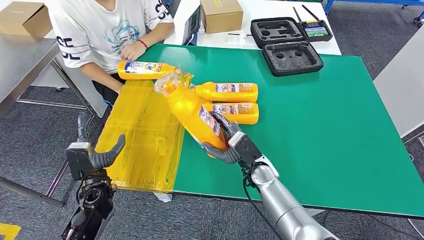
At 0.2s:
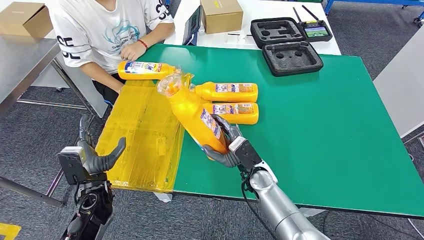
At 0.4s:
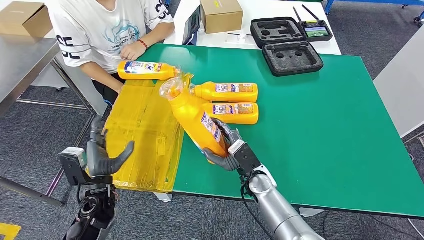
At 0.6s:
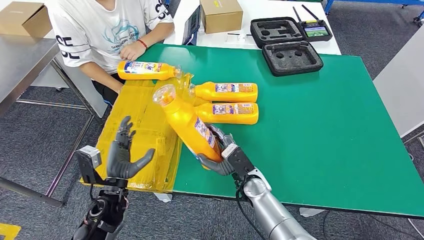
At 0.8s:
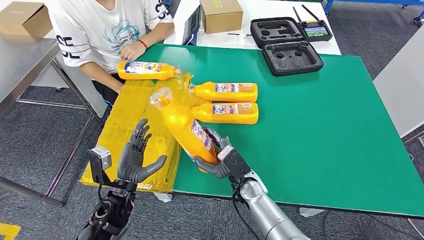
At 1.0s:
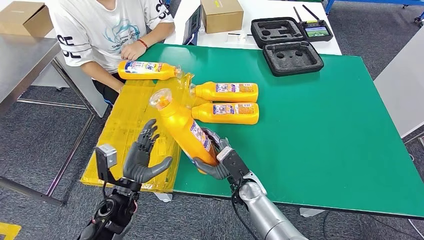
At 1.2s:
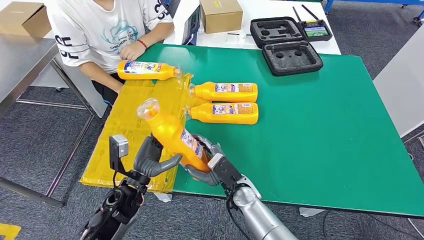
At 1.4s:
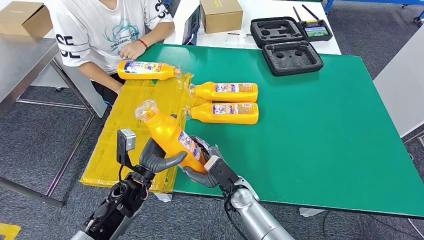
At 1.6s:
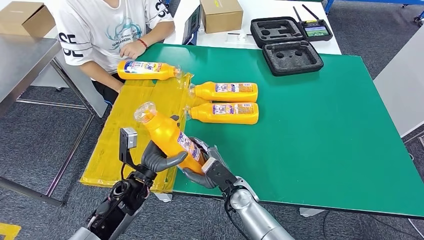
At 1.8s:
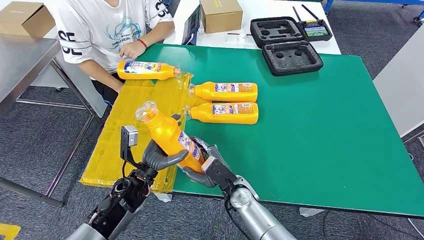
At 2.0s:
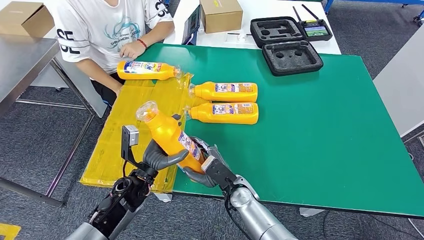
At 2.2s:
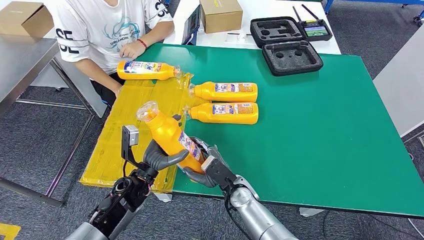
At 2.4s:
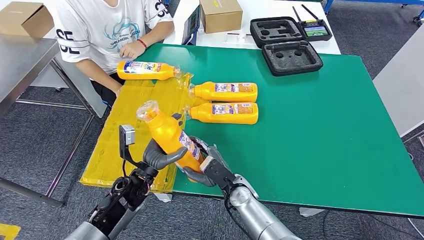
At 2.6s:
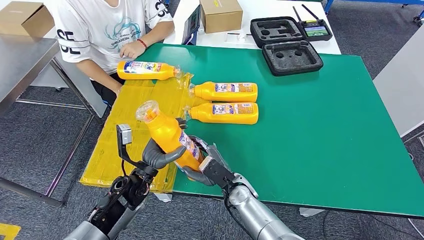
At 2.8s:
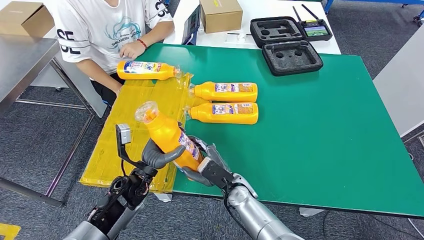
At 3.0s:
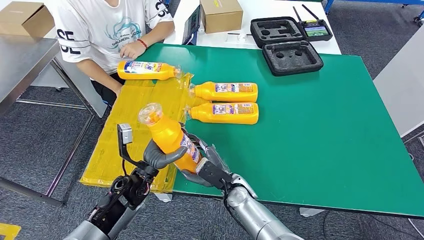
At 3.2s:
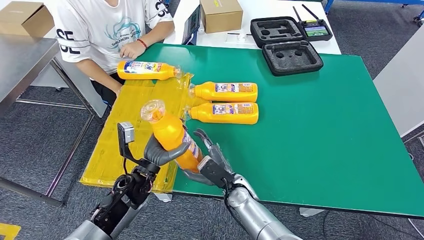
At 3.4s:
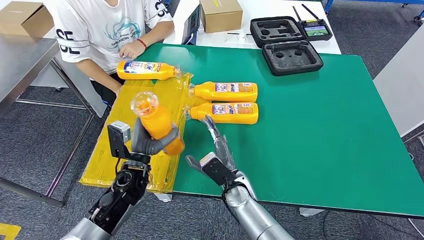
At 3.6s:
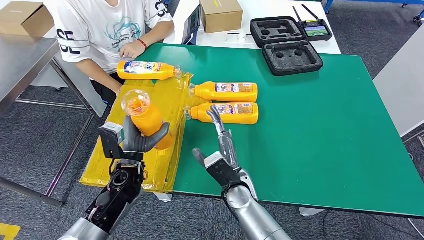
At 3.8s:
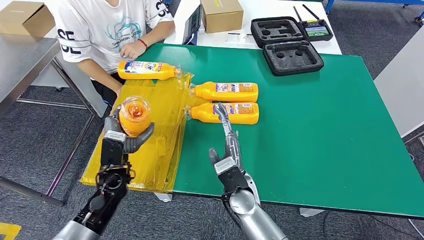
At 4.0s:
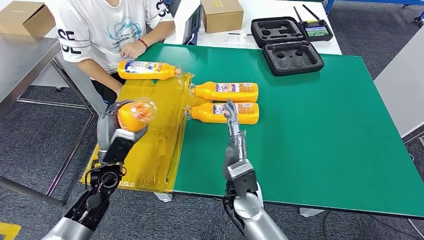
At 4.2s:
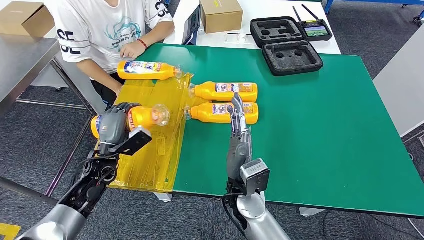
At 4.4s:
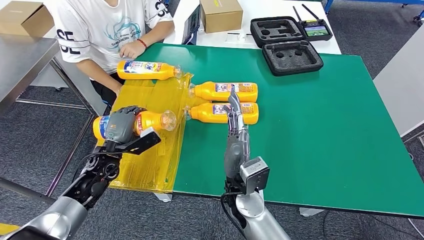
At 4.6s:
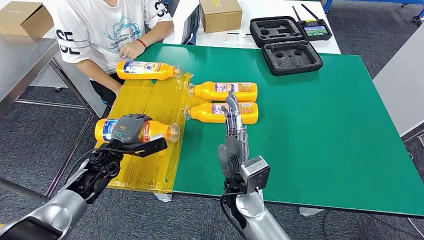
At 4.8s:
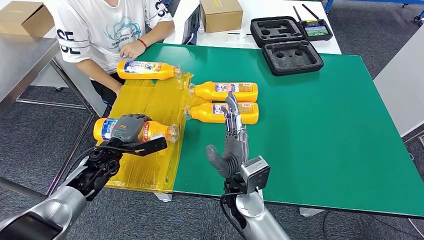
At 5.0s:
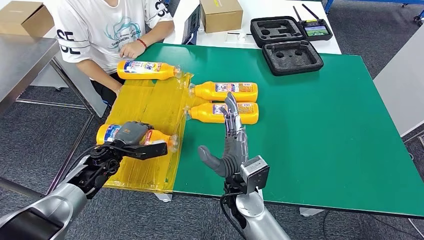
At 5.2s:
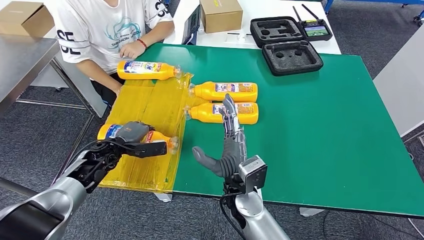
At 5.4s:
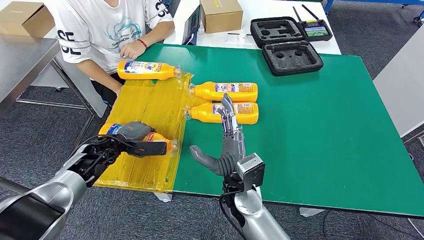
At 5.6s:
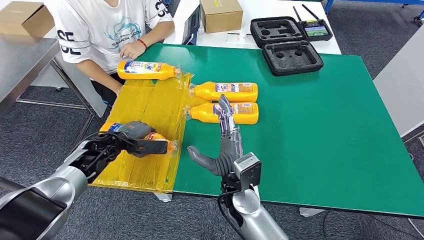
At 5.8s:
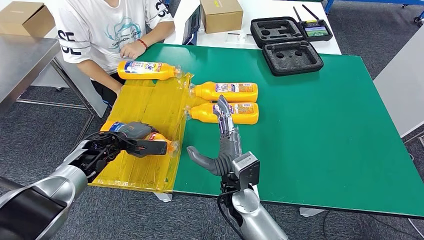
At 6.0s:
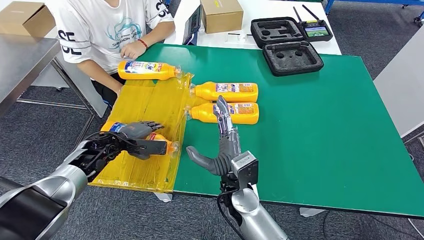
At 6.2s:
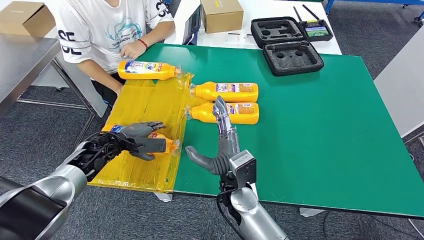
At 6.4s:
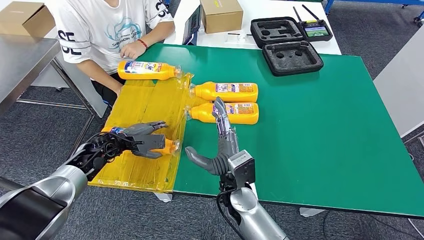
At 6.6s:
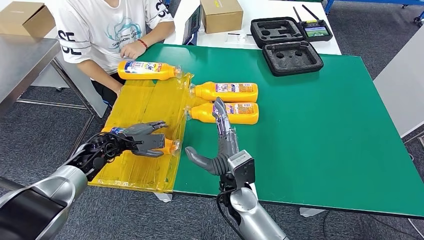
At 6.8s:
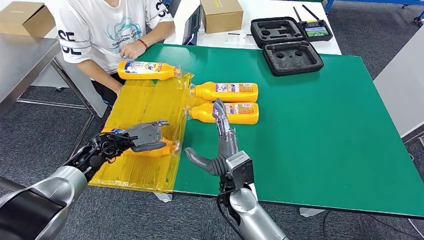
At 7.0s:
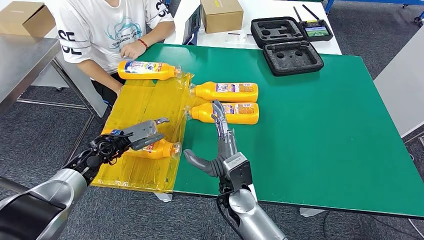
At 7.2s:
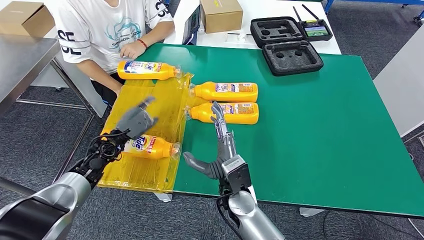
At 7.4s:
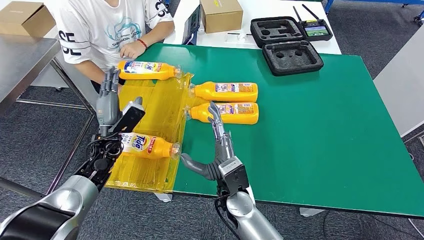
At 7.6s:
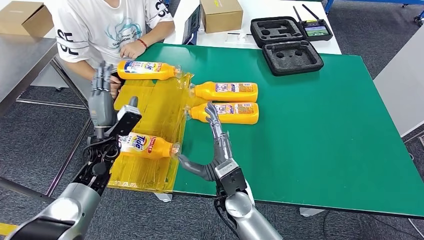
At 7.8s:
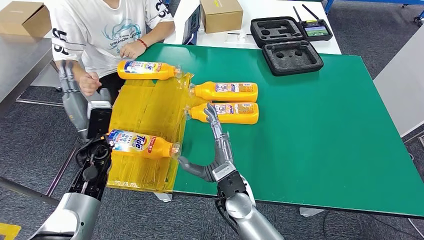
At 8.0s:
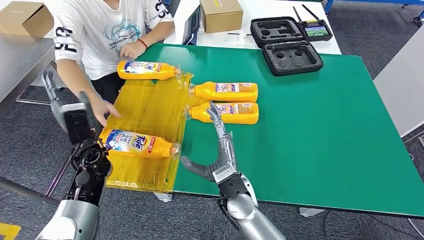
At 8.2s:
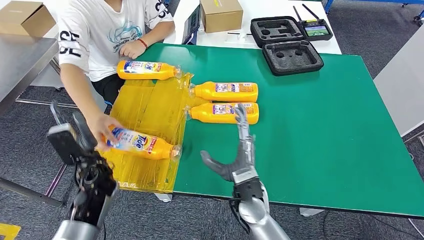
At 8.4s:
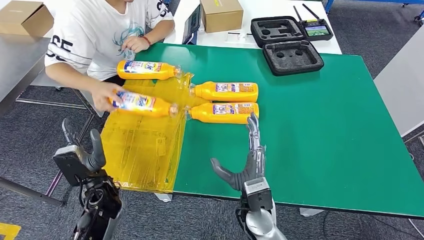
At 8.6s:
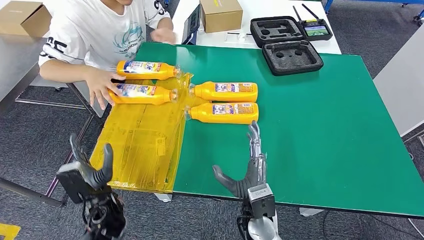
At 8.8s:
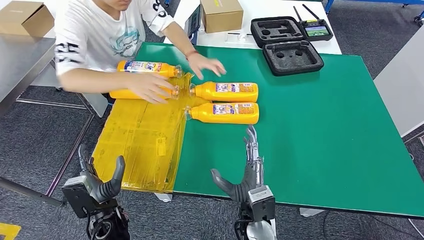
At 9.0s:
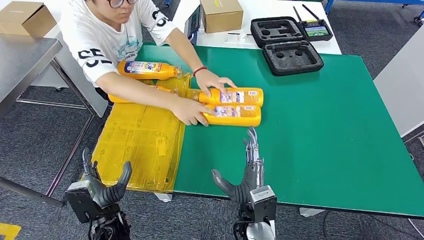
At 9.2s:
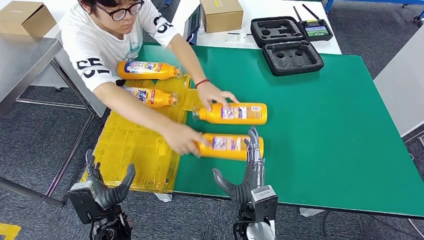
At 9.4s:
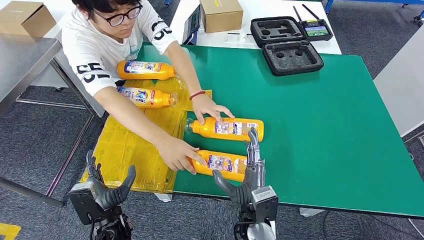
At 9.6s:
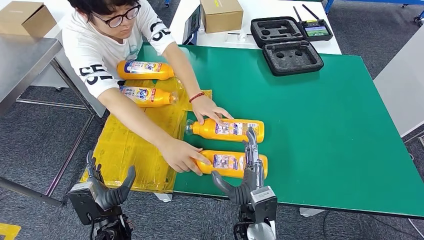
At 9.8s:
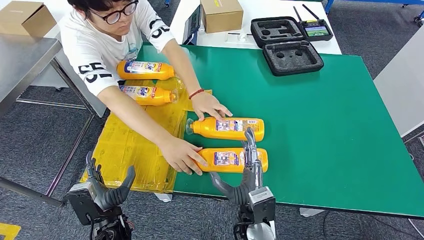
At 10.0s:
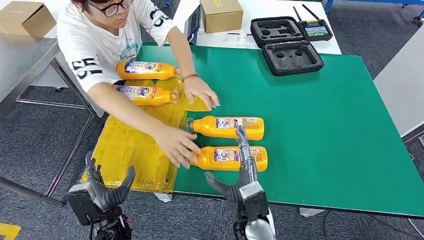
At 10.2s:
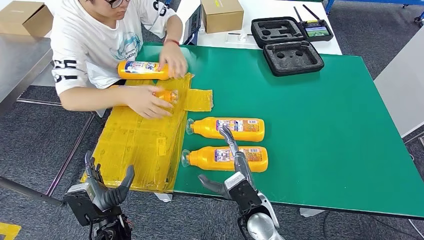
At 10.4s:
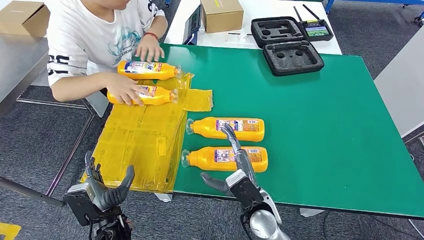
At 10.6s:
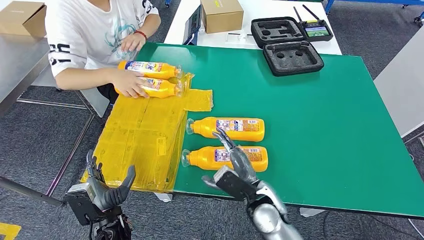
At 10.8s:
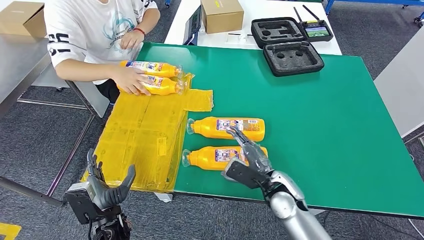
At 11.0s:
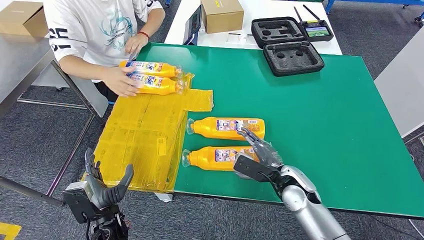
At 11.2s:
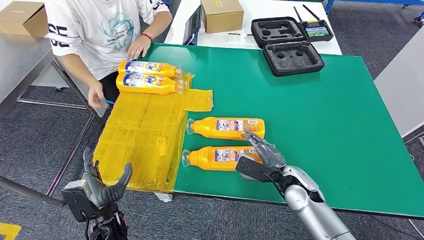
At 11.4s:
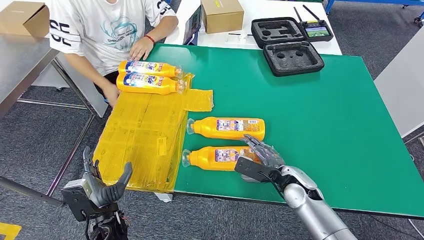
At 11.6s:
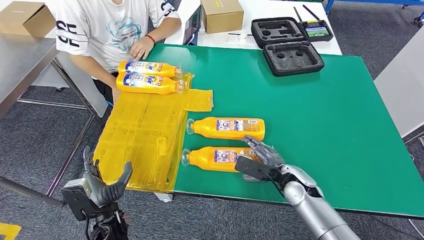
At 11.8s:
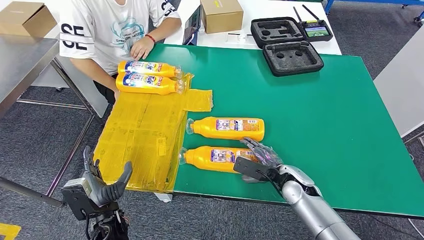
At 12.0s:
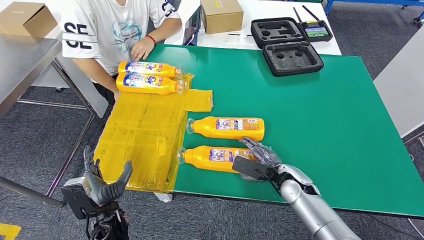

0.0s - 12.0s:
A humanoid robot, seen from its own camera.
Step, 0.0s - 2.0s: Pick up the fast-moving consumer goods bottle from the table.
Step, 2.4s - 6.2s: Flip the fast-moving consumer goods bottle to the front side.
0.0s - 1.6s: The left hand moves to the right, approximately 10 cm; the right hand heads backward and to the left, covering about 10 cm.
1.6s - 3.0s: There are only small adjustments of the hands.
3.0s - 4.4s: The left hand shifts roughly 10 cm to the left and forward; the right hand goes about 10 cm upward.
10.4s - 12.0s: The right hand is displaced to the right and forward by roughly 15 cm.

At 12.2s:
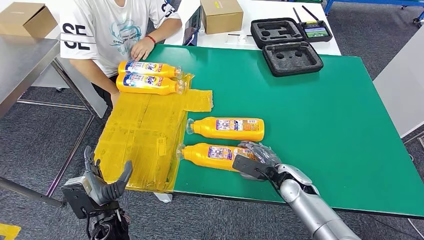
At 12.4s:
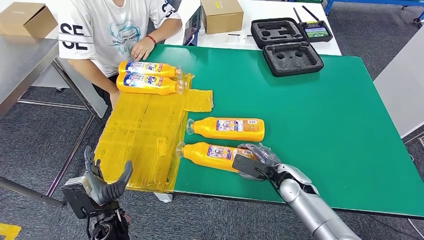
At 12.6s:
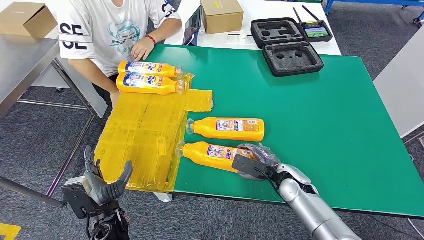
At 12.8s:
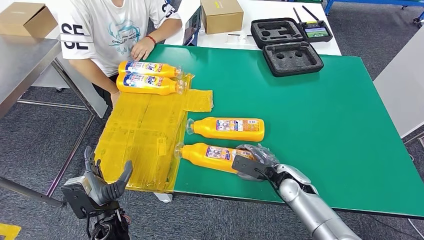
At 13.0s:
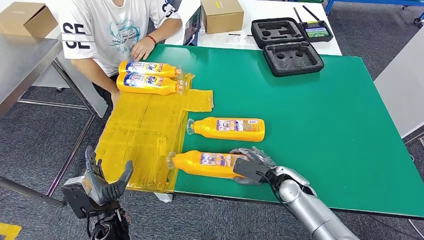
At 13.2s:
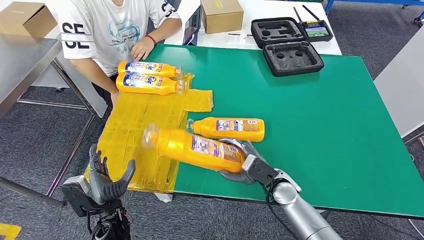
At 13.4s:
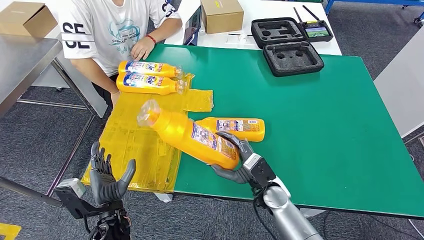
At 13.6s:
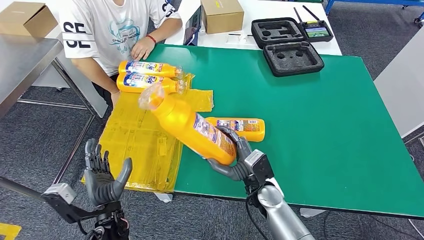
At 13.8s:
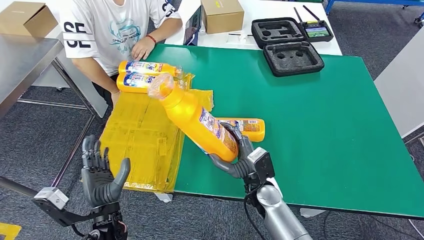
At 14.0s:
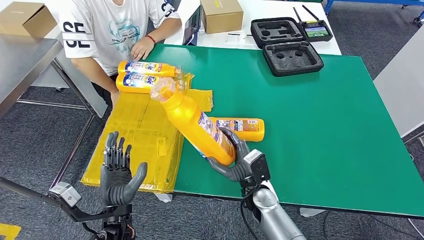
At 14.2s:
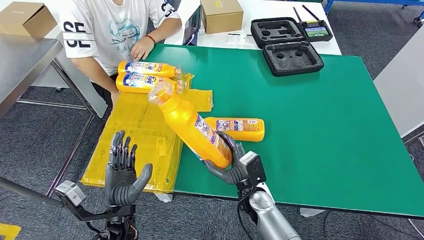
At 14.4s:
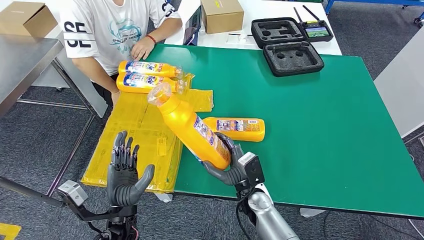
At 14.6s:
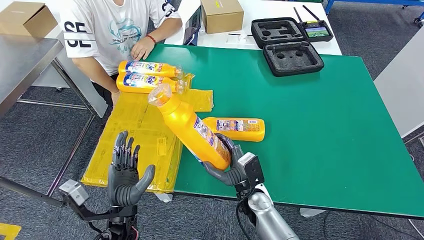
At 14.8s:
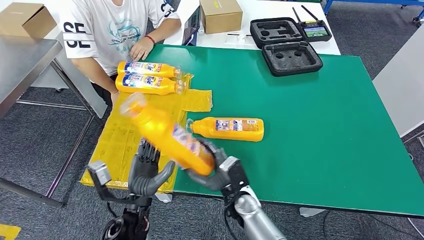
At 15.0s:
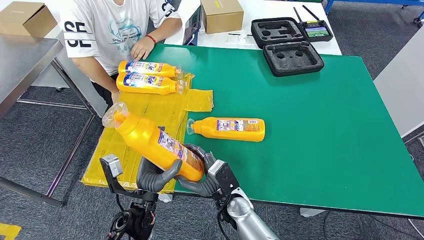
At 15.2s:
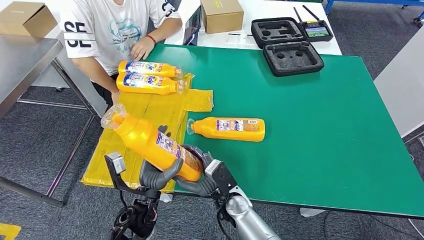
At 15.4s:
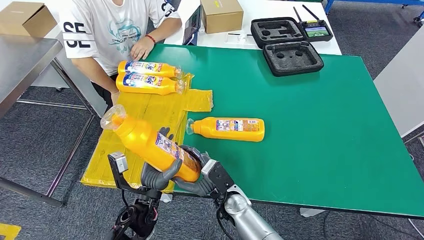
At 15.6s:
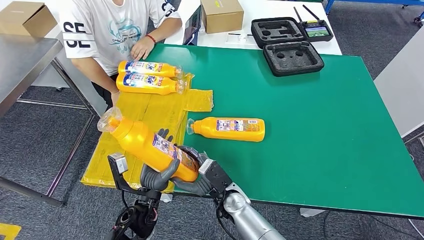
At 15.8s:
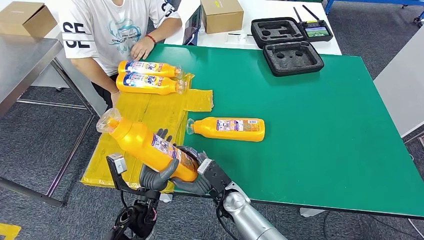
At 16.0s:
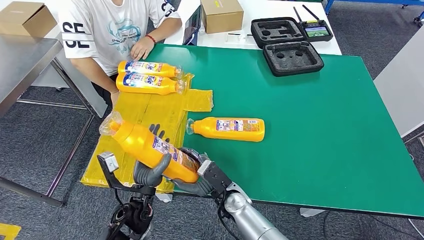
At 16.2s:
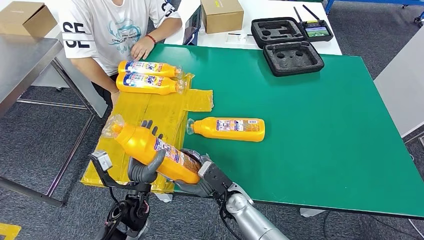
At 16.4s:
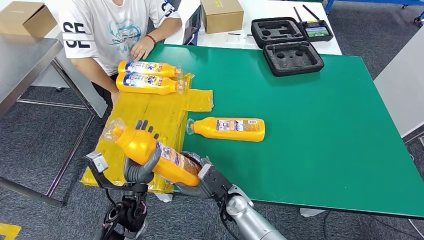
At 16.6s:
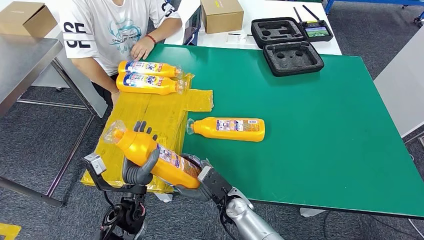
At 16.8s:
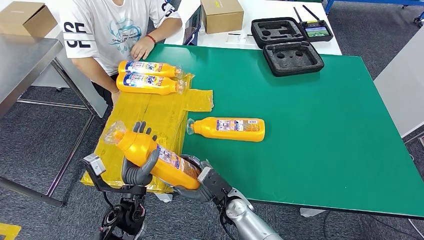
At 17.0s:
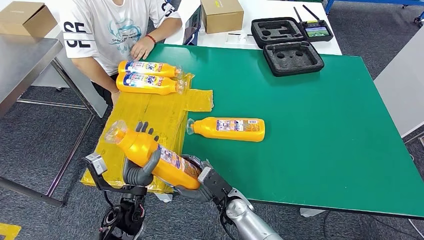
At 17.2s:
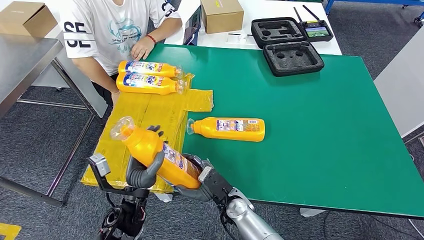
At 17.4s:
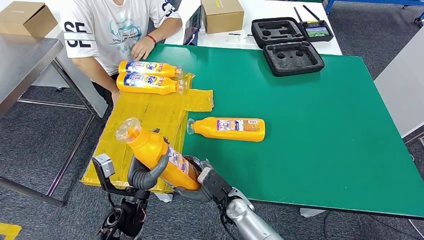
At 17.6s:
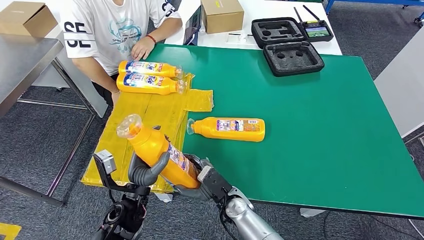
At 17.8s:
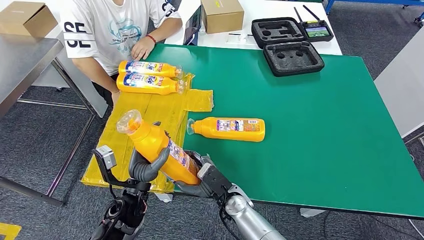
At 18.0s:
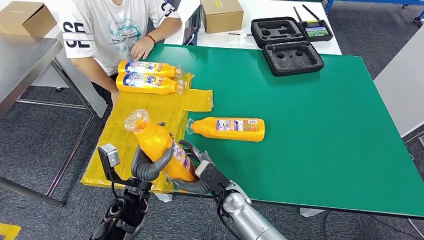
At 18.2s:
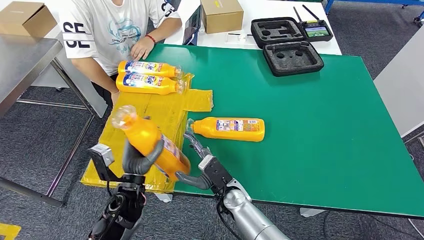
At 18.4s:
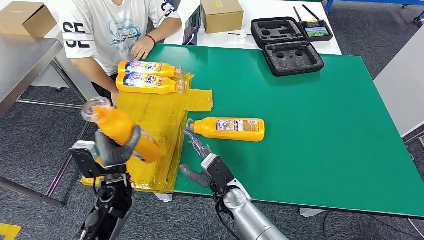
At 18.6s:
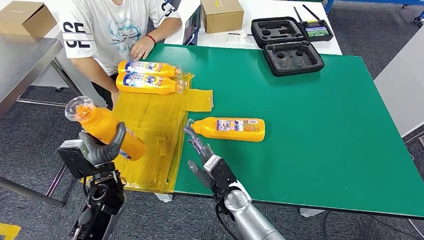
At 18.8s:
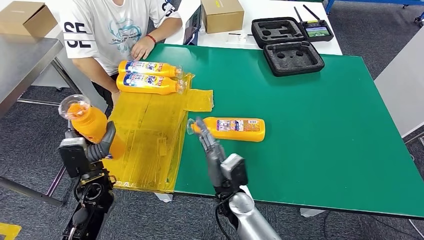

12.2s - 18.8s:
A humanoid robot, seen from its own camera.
Step, 12.2s - 15.0s: Pick up the fast-moving consumer goods bottle from the table.
12.2s - 13.8s: The right hand shifts some 10 cm to the left. The left hand shifts some 5 cm upward.
13.8s - 15.4s: The left hand heads to the right and forward, covering approximately 10 cm. Meanwhile the right hand shifts roughly 10 cm to the left.
15.4s - 17.2s: The hands move only a little.
17.2s - 18.8s: The right hand moves upward, some 5 cm. The left hand goes roughly 10 cm to the left and forward.
